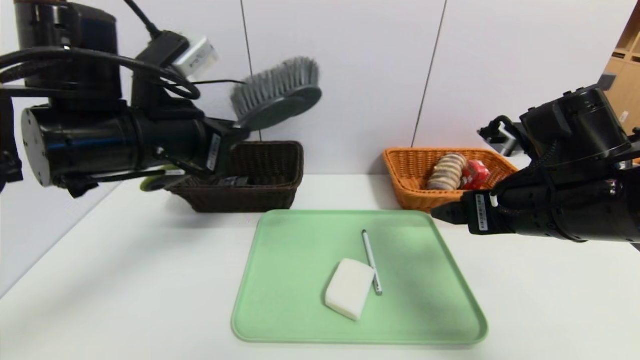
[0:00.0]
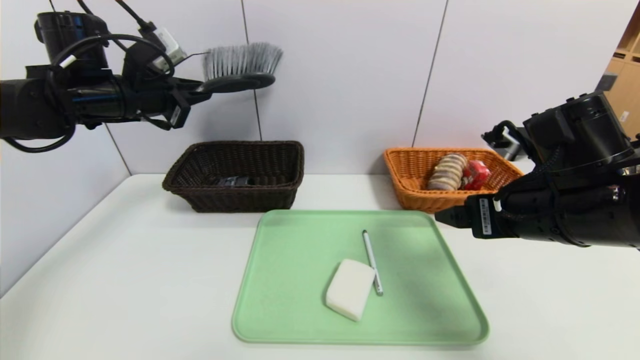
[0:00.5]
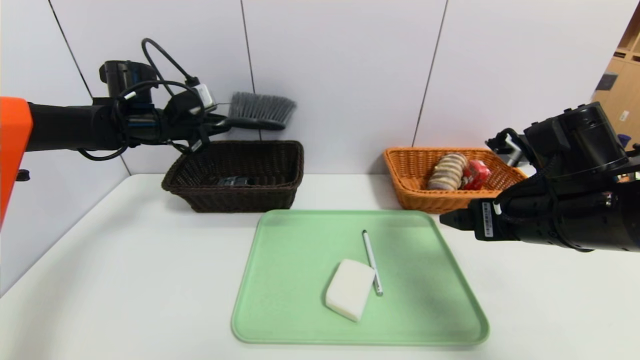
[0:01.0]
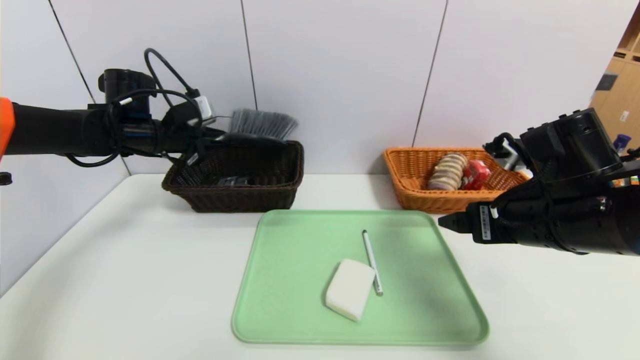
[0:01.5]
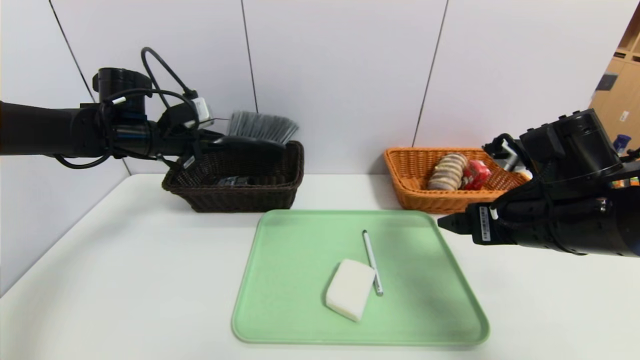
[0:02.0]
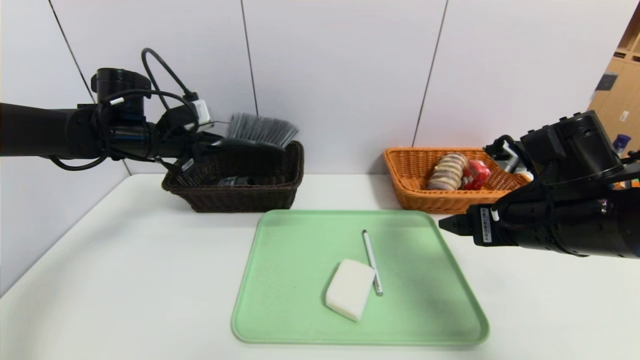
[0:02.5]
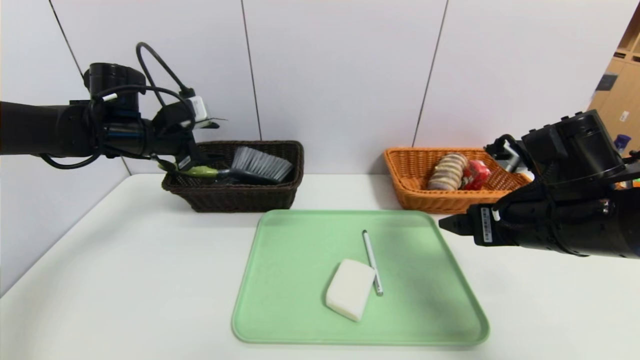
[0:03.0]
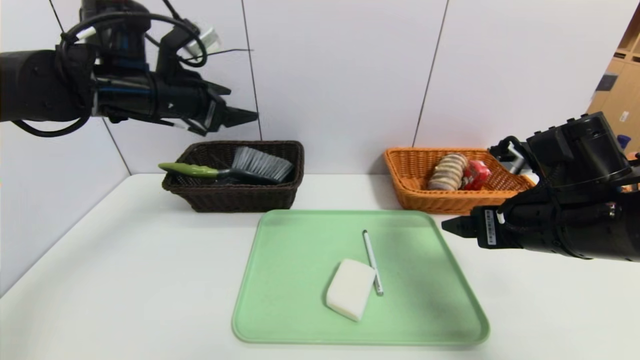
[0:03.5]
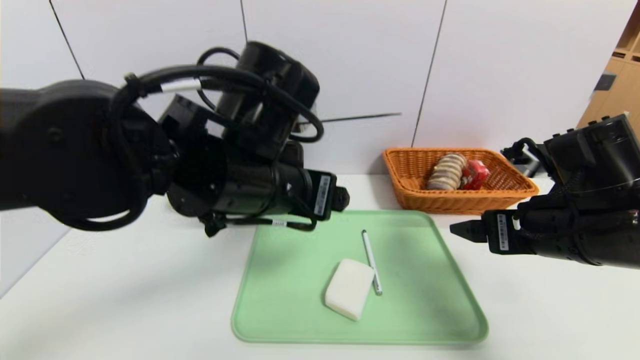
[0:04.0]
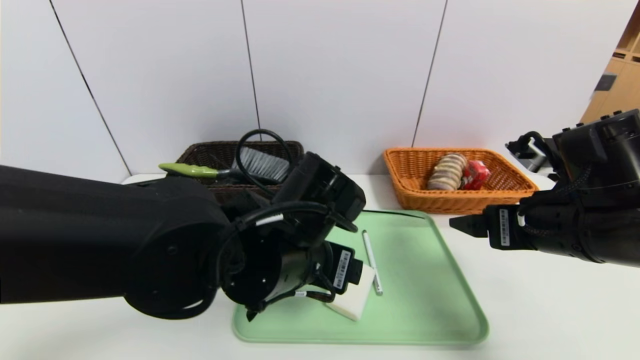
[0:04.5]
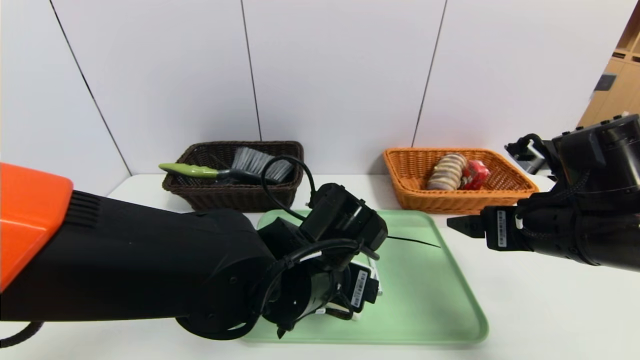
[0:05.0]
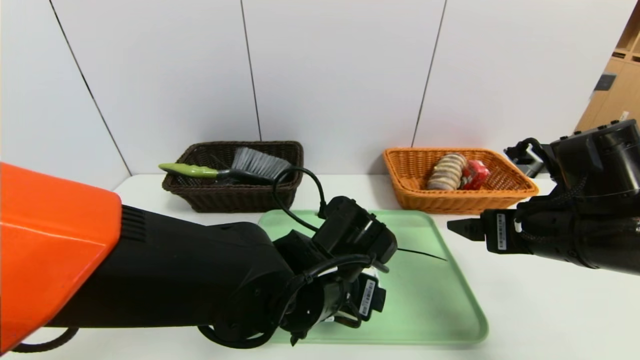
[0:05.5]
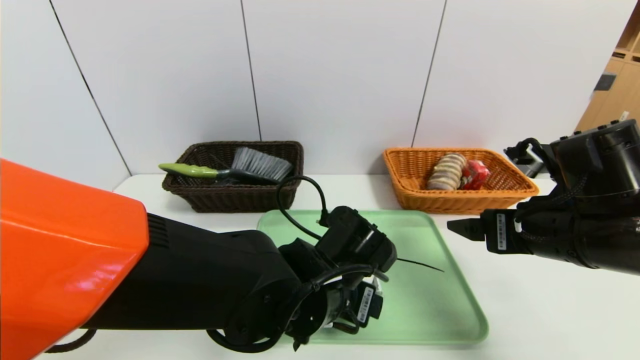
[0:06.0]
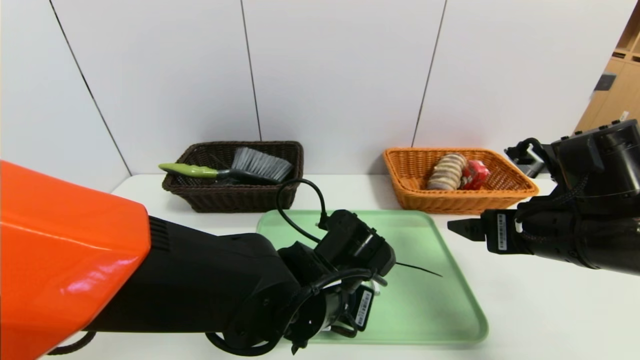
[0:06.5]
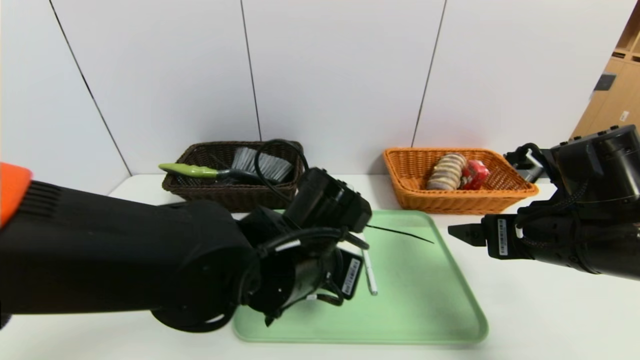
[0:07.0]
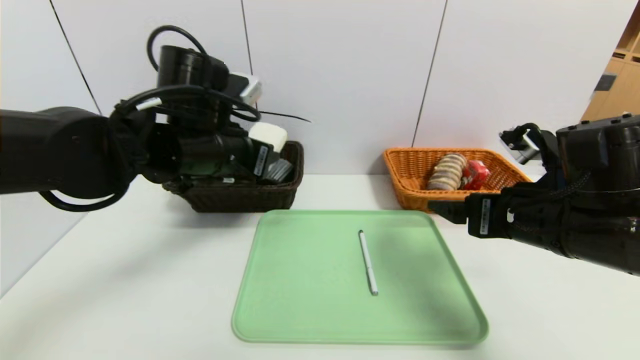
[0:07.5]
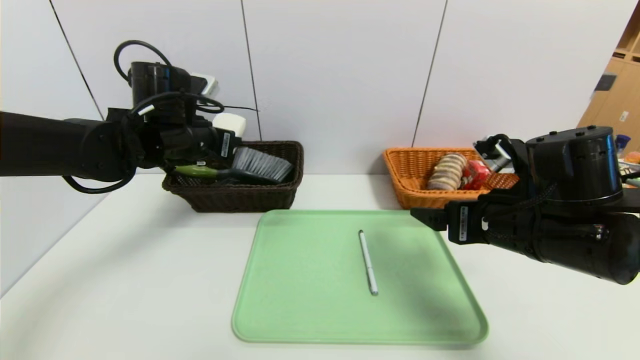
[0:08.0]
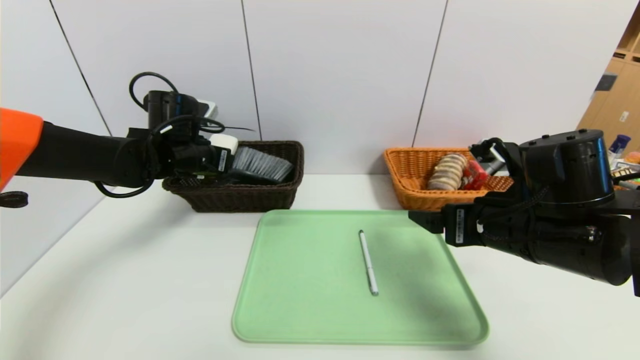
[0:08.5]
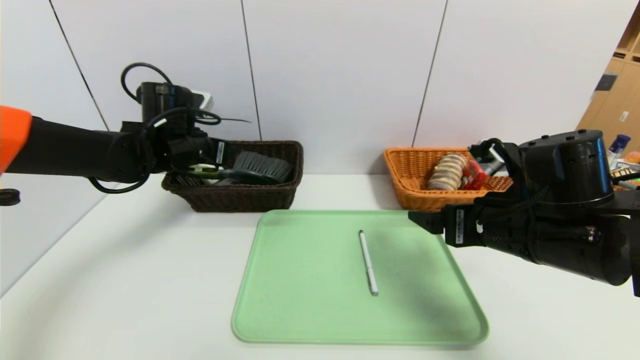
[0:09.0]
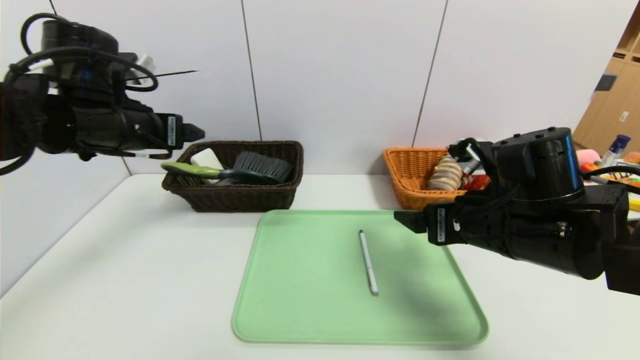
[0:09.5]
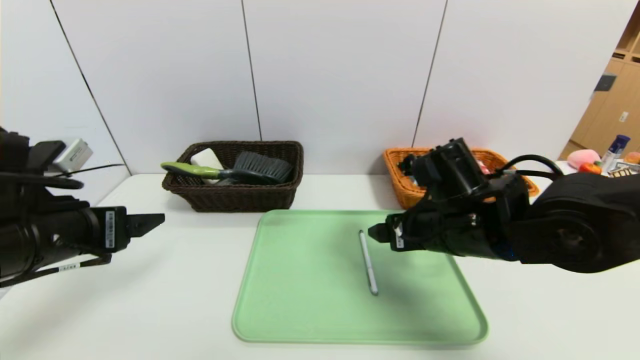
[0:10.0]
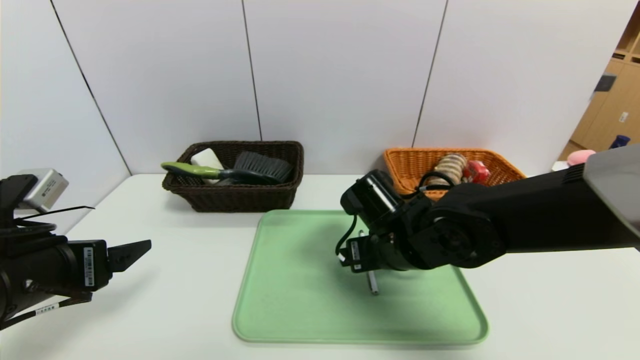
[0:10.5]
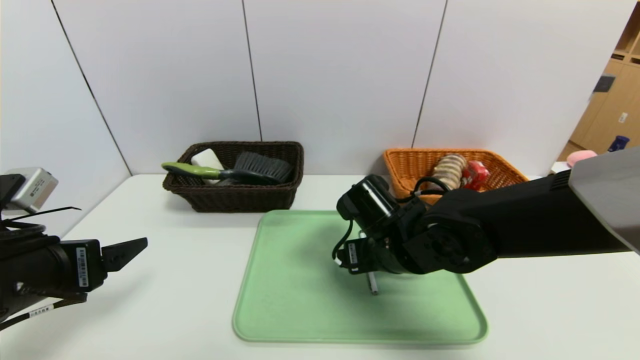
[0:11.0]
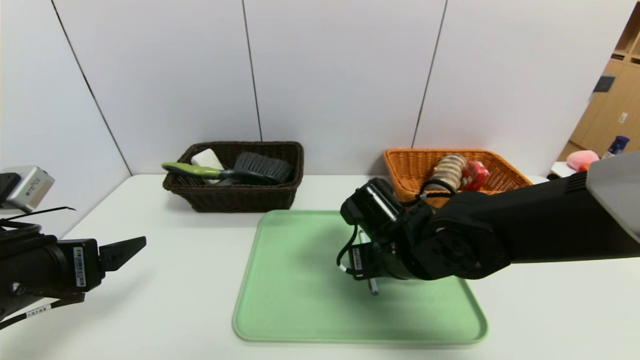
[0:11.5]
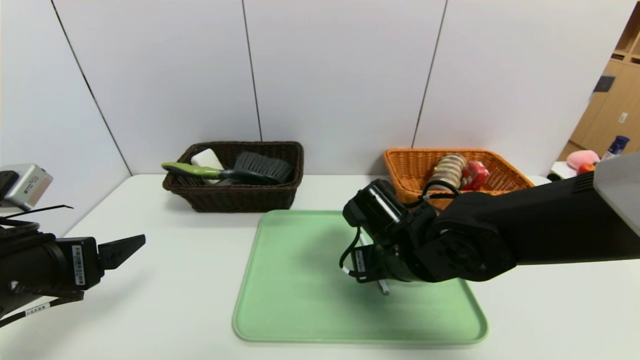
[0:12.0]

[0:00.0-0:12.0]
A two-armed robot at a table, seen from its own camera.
Task of the whole recording: place the food in the right basket with the right gripper, and place the non food items in the left basket with the left gripper.
Step, 0:00.0 to 0:03.0: Grasp the broom and put it in the left basket.
Step, 0:03.5 to 0:08.5: Grasp the soap and put it in the left basket.
0:00.0 to 0:02.0: The left gripper is displaced forward, to the left and downward by roughly 20 cm.
0:02.0 to 0:04.0: The left gripper moves to the right and backward, approximately 30 cm, and opens its fingers.
0:04.0 to 0:06.0: The left gripper travels downward and to the right by approximately 15 cm.
0:06.0 to 0:08.0: The left gripper moves to the left, forward and upward, approximately 30 cm, and closes.
0:08.0 to 0:10.0: The left gripper heads backward and to the left, covering some 20 cm, and opens its fingers. The right gripper travels to the left by approximately 5 cm.
0:10.0 to 0:12.0: The right gripper goes some 10 cm downward and to the left, and closes its fingers.

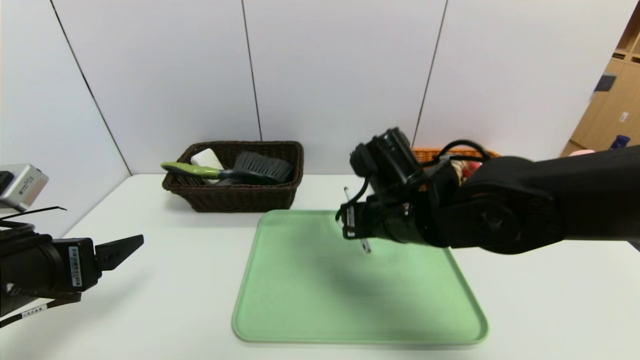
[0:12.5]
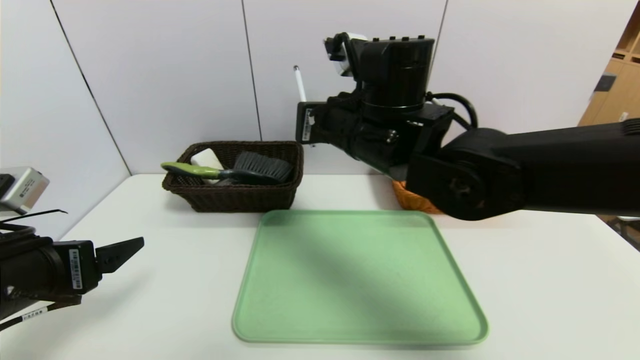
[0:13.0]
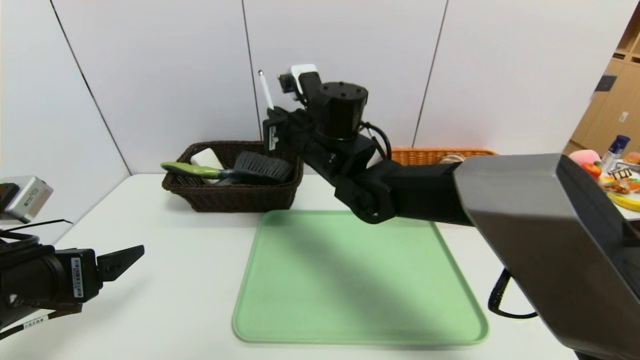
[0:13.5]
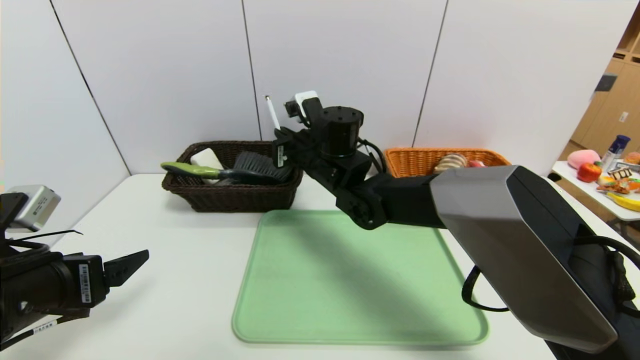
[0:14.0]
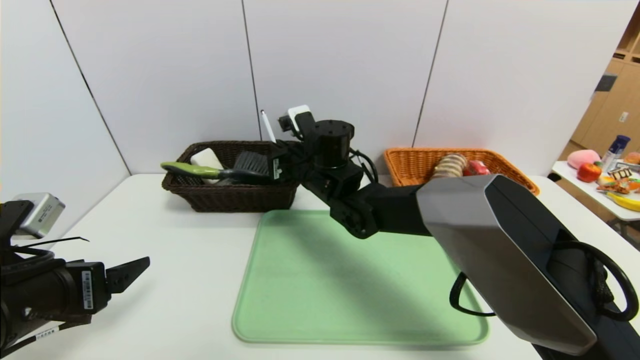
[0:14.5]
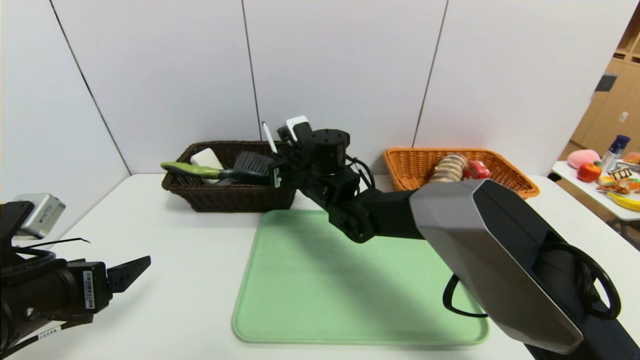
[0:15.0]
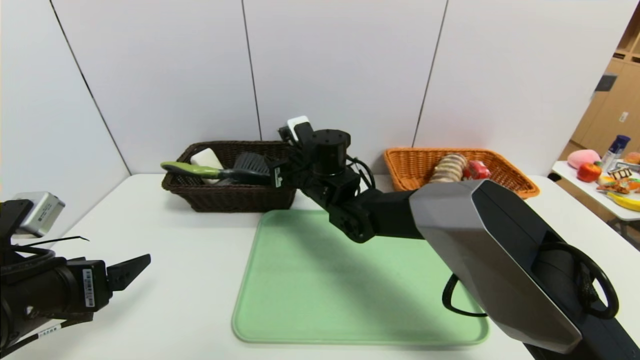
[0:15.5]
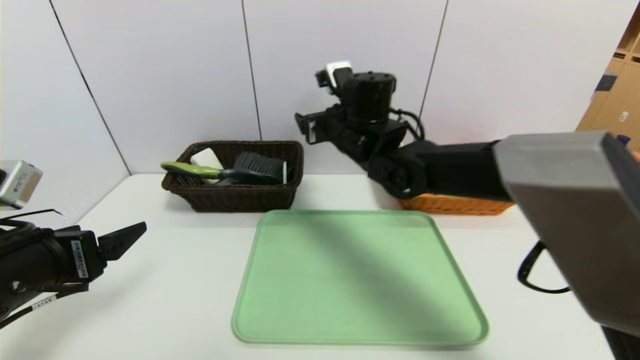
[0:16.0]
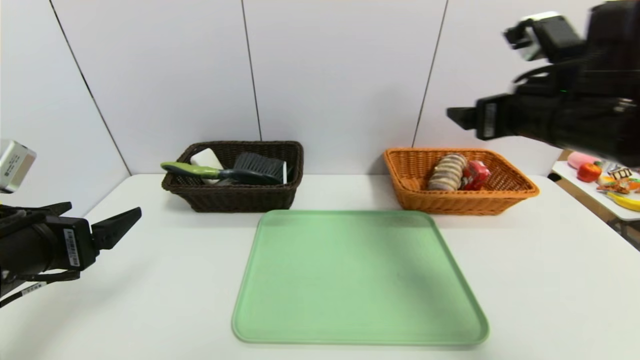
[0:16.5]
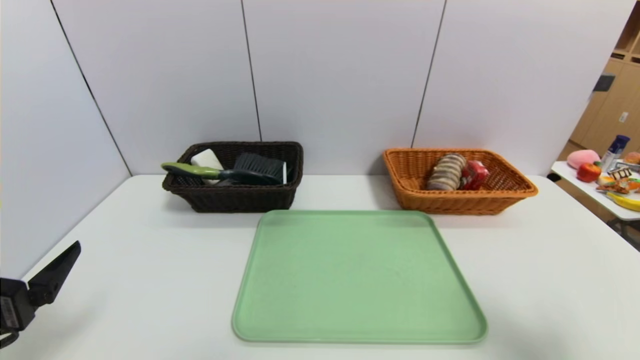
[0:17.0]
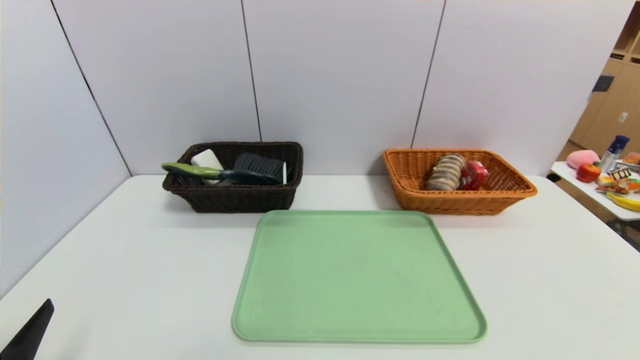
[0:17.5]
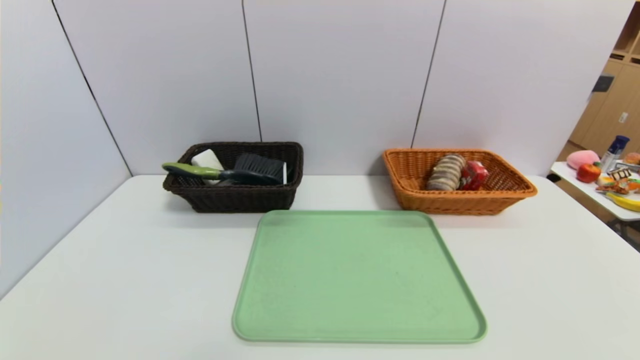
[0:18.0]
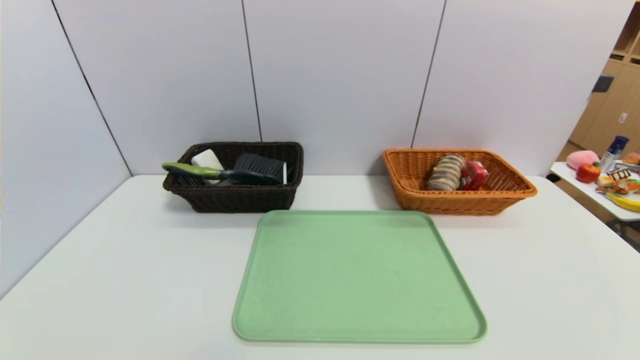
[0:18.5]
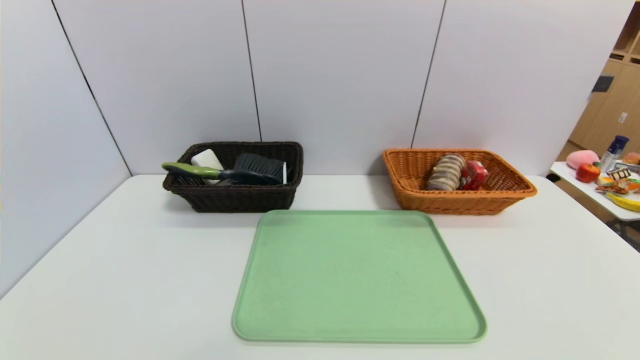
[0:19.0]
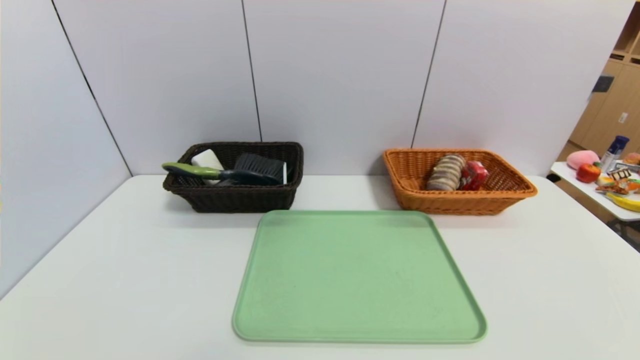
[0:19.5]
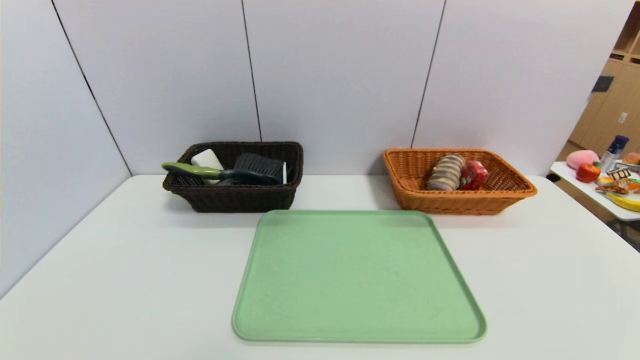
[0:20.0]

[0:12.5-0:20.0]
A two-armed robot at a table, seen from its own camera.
Task of the whole recording: place the food in the right basket with the right gripper, and place the non food items in the left basket with the left gripper.
0:12.5 to 0:14.5: The right gripper travels forward and to the left by some 15 cm.
0:14.5 to 0:16.5: The right gripper heads to the right, upward and backward, covering about 30 cm, and opens up.
0:16.5 to 0:18.0: The right gripper shifts about 35 cm backward and downward; the left gripper moves backward and downward, some 20 cm.
